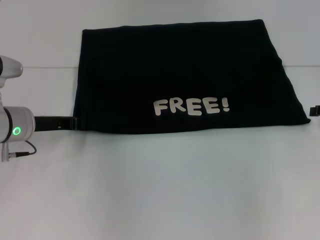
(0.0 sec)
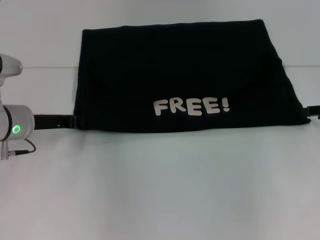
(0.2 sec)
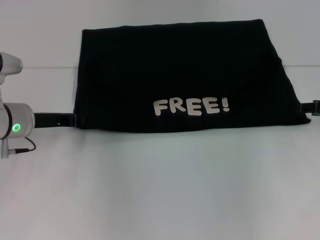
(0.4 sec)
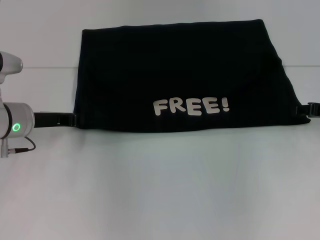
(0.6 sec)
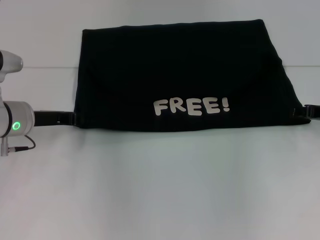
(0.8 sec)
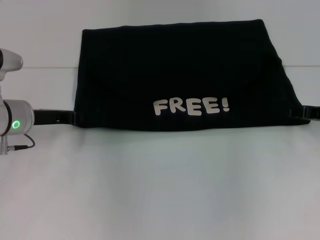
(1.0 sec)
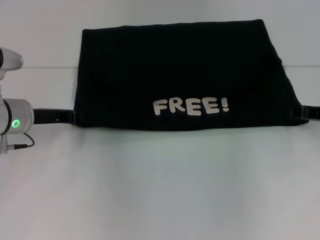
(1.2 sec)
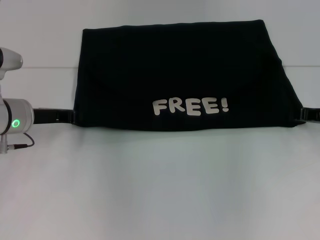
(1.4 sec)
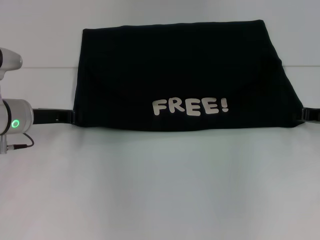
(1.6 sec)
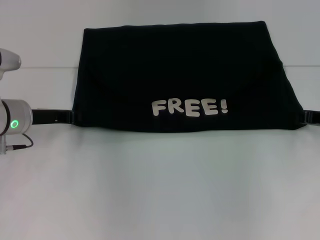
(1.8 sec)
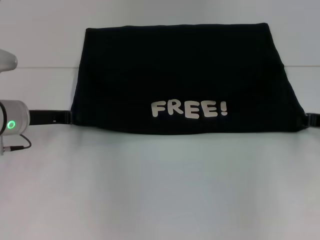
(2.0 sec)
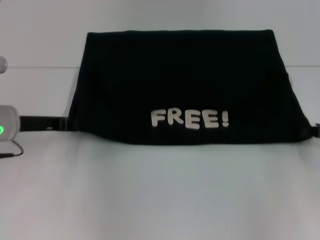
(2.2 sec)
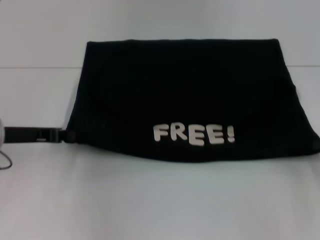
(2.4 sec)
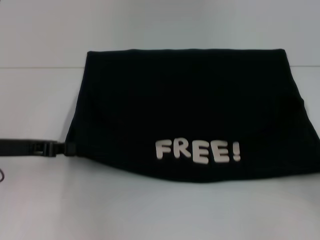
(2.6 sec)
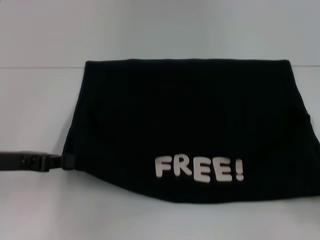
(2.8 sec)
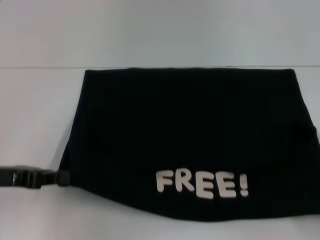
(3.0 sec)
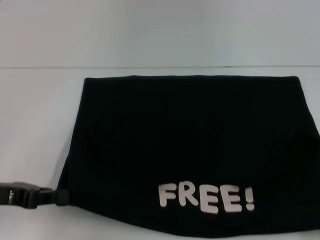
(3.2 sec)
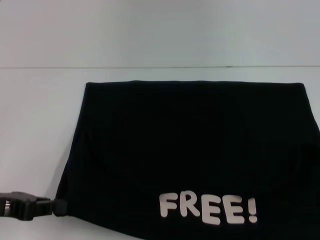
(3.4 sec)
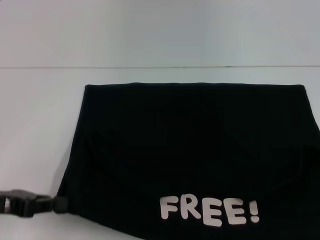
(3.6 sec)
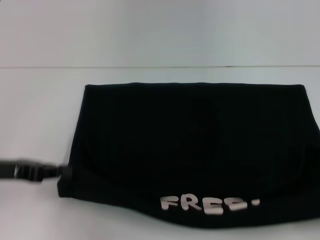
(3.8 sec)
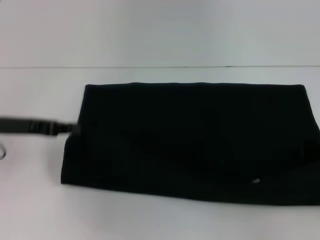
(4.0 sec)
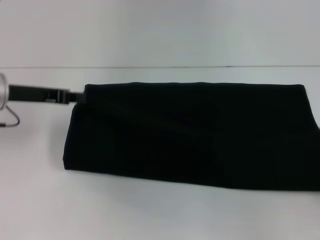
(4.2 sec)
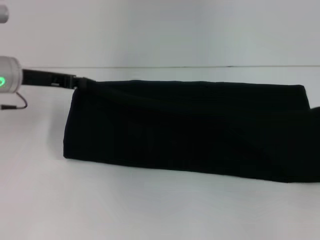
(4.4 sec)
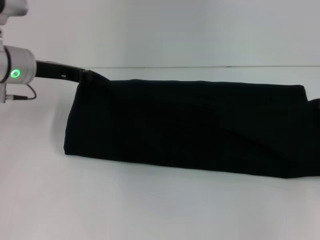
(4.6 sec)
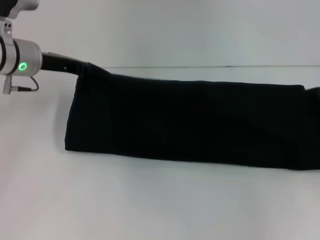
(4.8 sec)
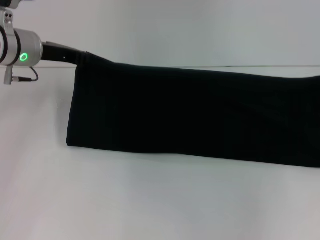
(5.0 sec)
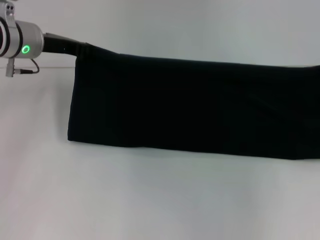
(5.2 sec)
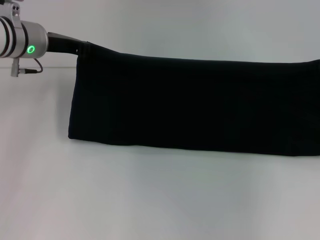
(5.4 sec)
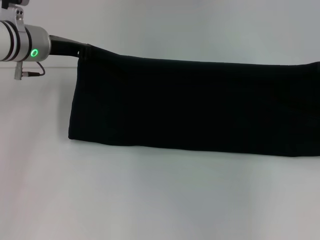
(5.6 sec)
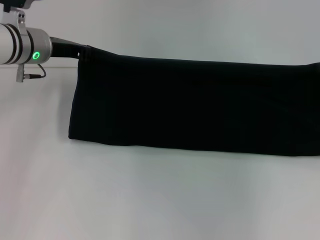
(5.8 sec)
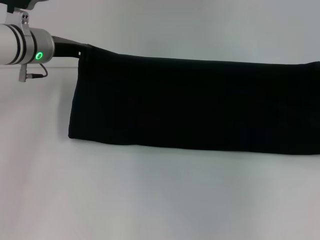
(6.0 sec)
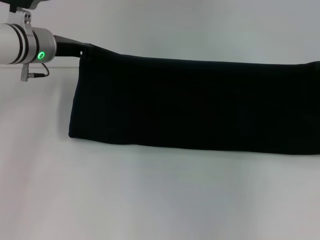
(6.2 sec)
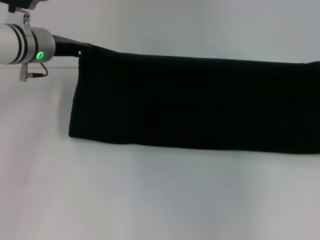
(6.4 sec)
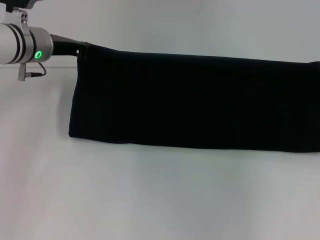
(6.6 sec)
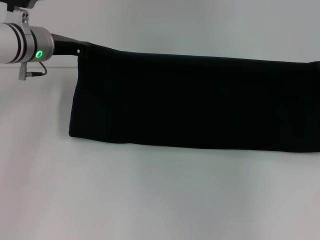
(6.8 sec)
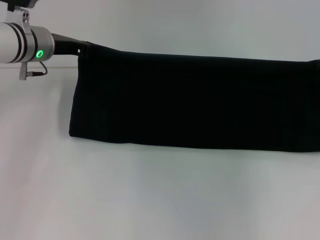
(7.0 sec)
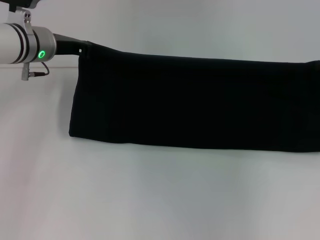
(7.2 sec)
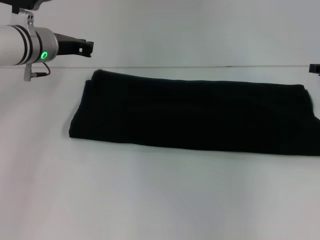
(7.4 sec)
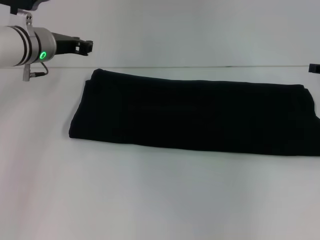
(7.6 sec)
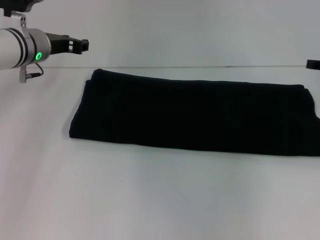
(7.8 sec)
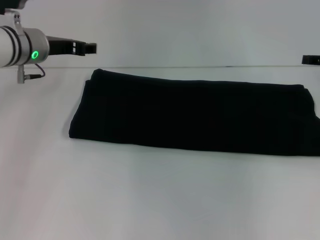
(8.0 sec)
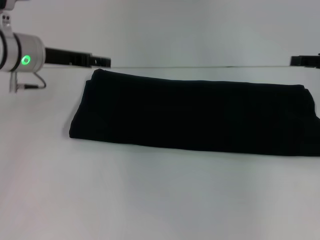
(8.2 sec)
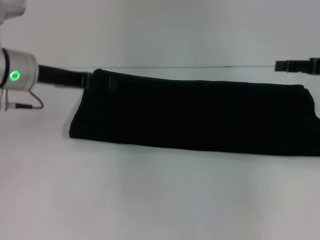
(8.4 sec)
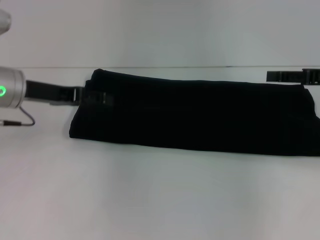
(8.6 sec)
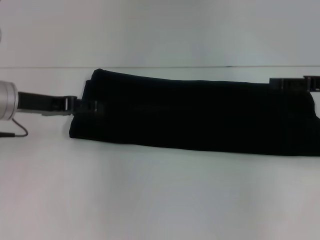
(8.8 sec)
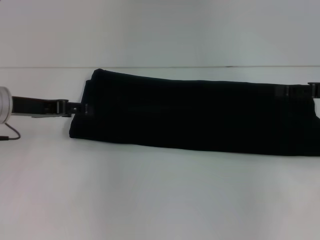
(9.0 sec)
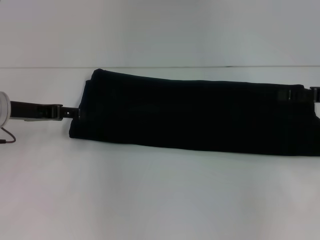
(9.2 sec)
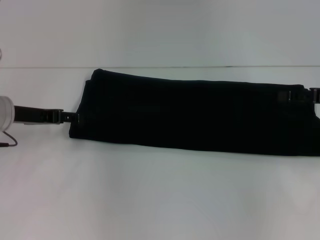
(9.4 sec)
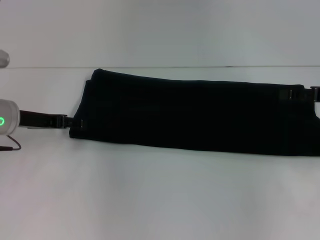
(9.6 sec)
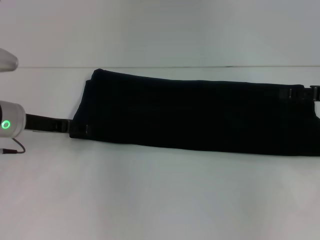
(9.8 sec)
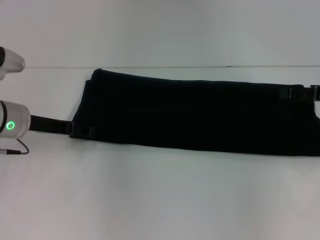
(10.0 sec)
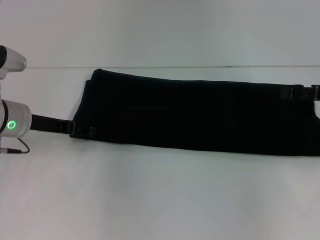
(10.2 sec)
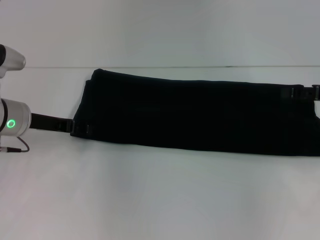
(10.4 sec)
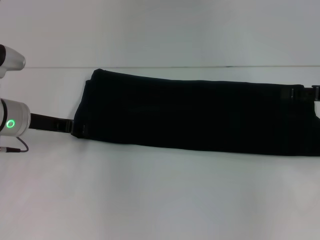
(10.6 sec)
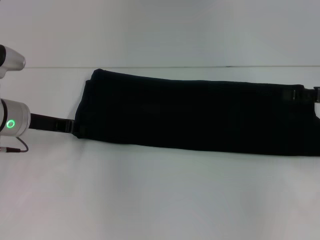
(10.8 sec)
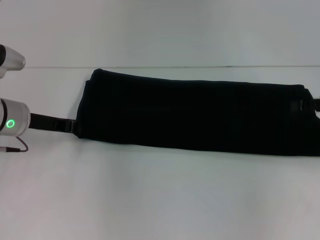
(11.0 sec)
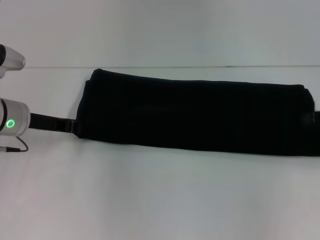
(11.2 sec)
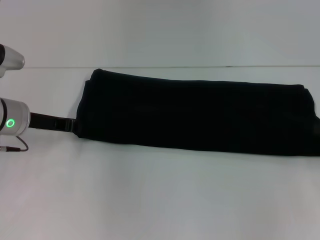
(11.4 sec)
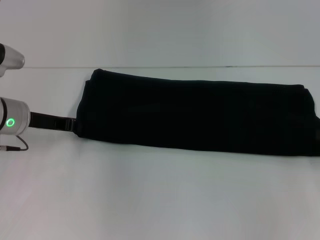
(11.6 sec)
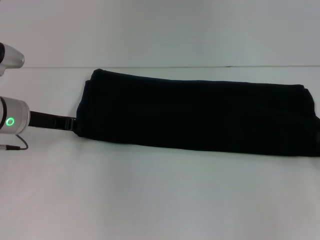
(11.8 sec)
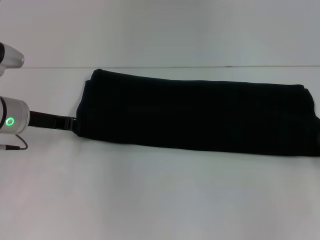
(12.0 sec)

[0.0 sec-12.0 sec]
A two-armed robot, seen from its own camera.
Step, 0.0 sec to 3.4 sec: Pull the clothes with your left hand.
Step, 0.0 sec to 3.4 sec: Pull the clothes with your right hand.
Step, 3.6 sec to 7.4 sec: Fold the clothes with your right hand.
0.0 sec to 1.6 sec: The right gripper shifts by some 5 cm, and closes up.
1.6 sec to 3.0 sec: The left gripper goes about 10 cm backward and to the left. The right gripper travels backward and to the right by about 20 cm.
3.0 sec to 4.4 sec: Both grippers move forward, approximately 15 cm.
4.4 sec to 6.0 sec: The left gripper moves forward, approximately 5 cm. The right gripper travels forward by some 10 cm.
6.0 sec to 7.6 sec: There are only small adjustments of the grippers.
7.6 sec to 9.0 sec: The right gripper opens, while the left gripper heads backward and to the left, covering approximately 10 cm, and opens up.
9.0 sec to 10.4 sec: The grippers make only small movements.
10.4 sec to 12.0 sec: The left gripper closes.

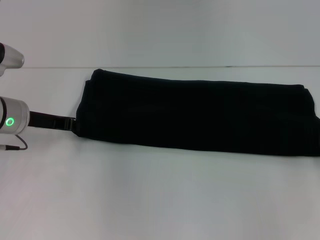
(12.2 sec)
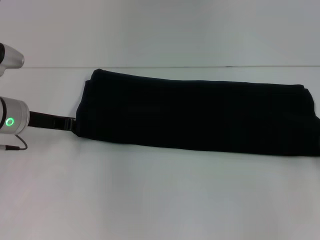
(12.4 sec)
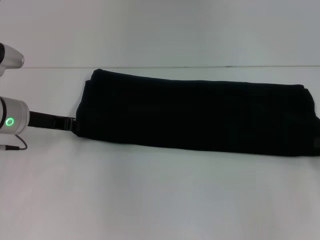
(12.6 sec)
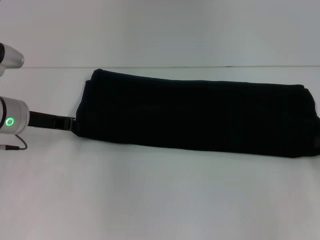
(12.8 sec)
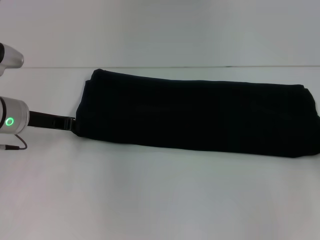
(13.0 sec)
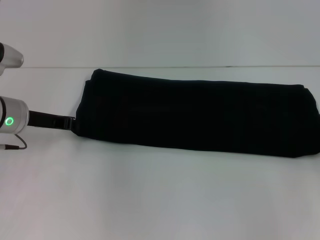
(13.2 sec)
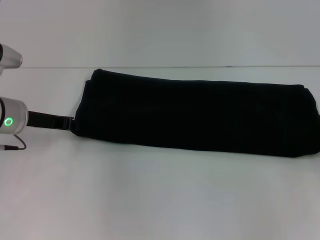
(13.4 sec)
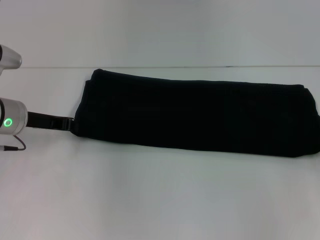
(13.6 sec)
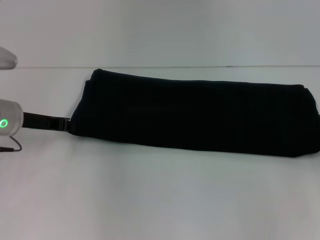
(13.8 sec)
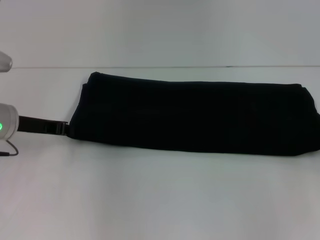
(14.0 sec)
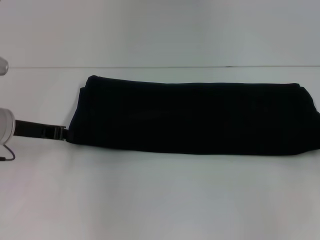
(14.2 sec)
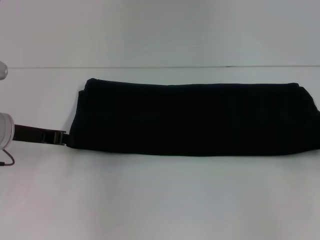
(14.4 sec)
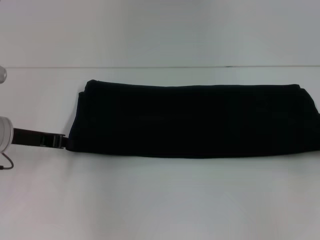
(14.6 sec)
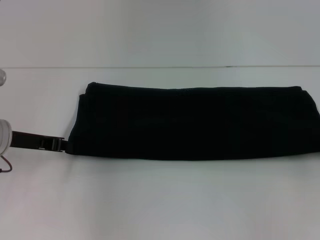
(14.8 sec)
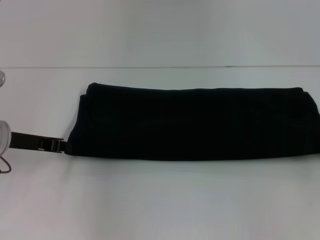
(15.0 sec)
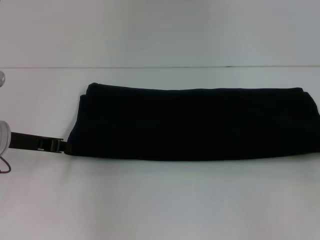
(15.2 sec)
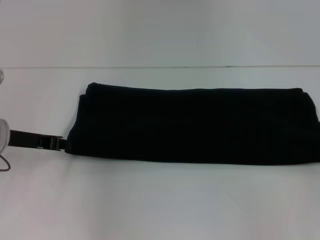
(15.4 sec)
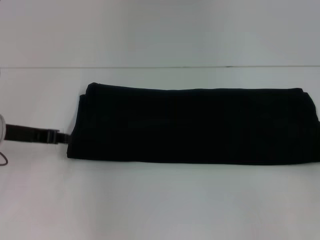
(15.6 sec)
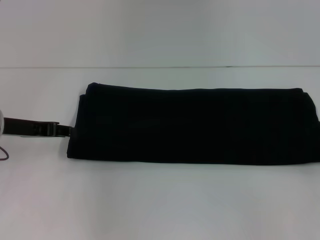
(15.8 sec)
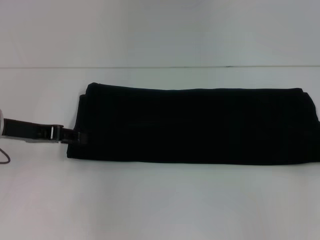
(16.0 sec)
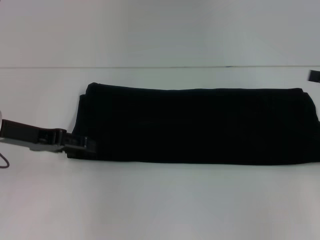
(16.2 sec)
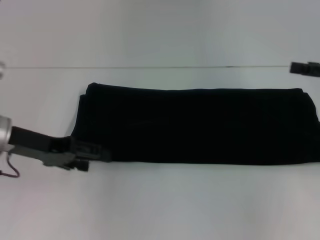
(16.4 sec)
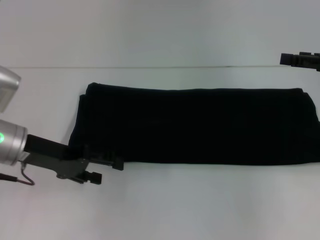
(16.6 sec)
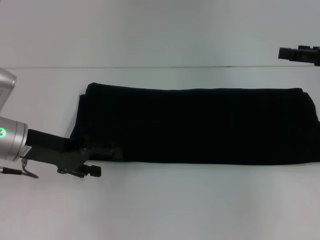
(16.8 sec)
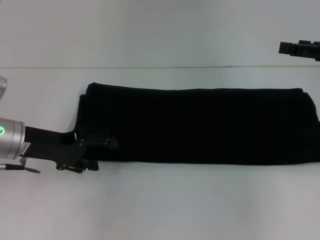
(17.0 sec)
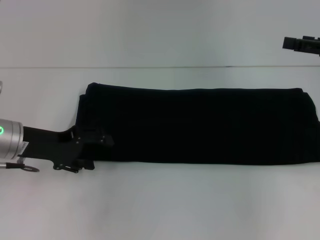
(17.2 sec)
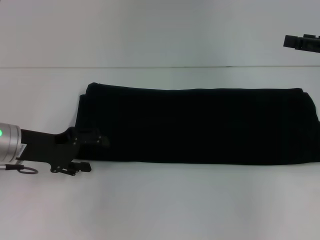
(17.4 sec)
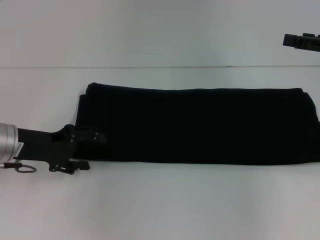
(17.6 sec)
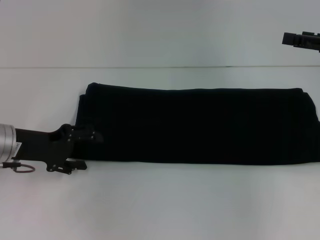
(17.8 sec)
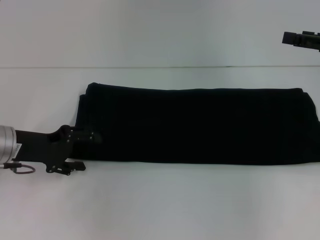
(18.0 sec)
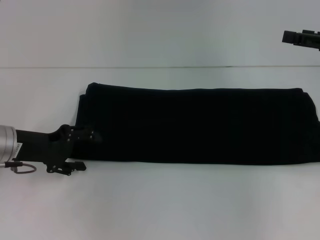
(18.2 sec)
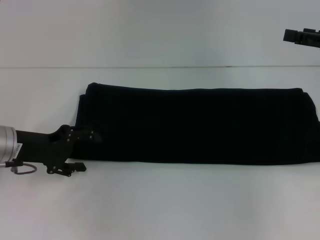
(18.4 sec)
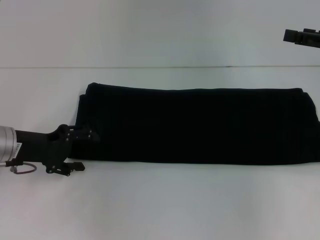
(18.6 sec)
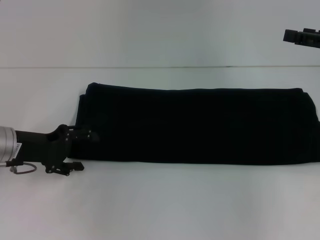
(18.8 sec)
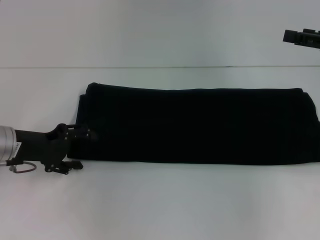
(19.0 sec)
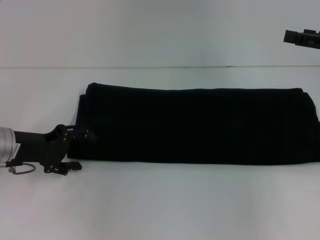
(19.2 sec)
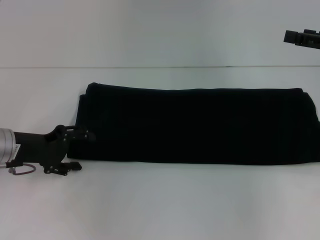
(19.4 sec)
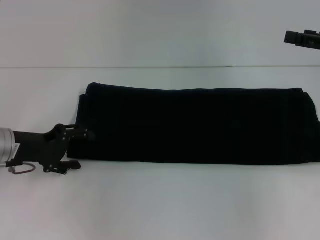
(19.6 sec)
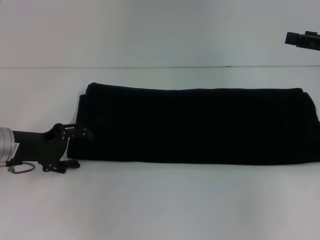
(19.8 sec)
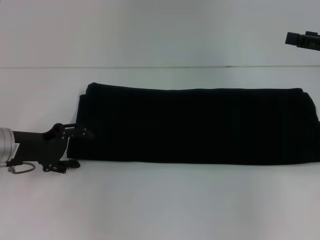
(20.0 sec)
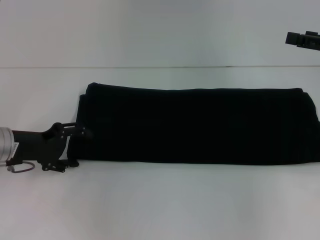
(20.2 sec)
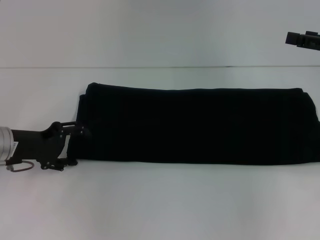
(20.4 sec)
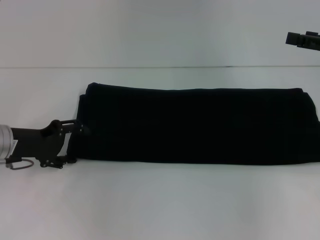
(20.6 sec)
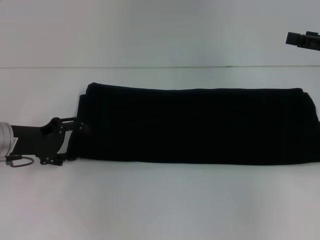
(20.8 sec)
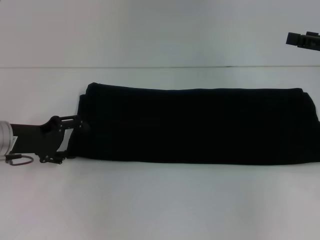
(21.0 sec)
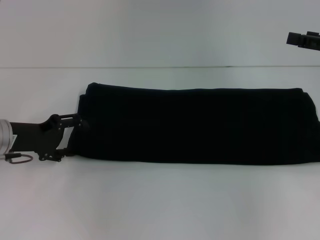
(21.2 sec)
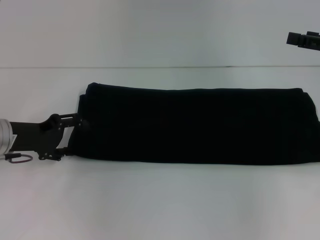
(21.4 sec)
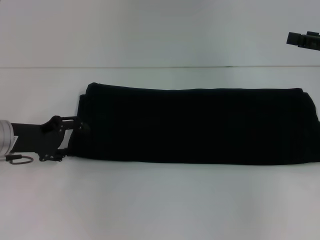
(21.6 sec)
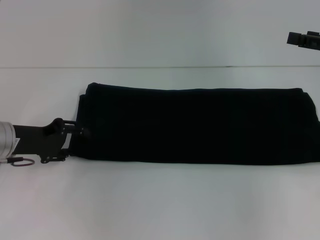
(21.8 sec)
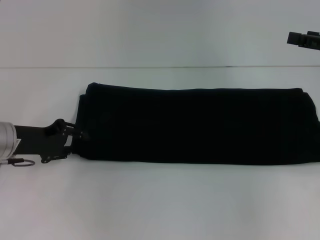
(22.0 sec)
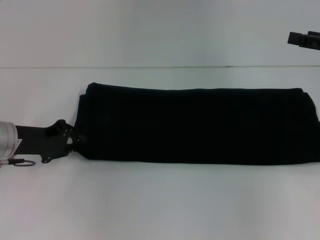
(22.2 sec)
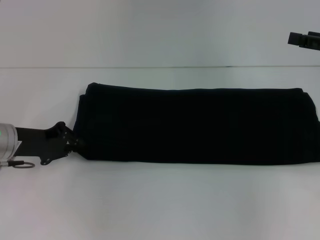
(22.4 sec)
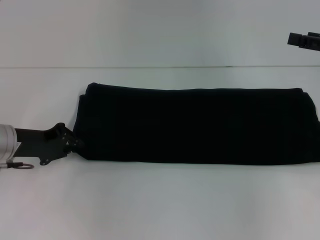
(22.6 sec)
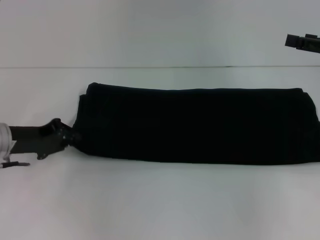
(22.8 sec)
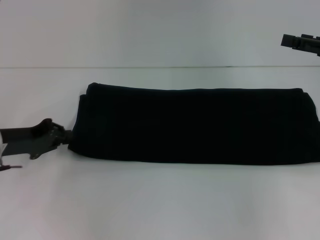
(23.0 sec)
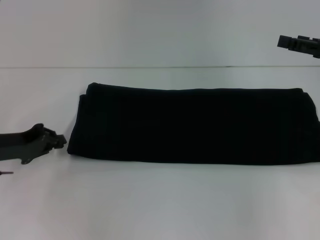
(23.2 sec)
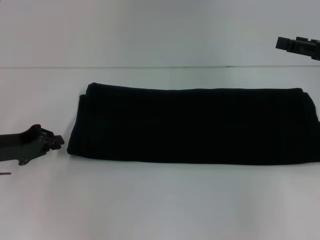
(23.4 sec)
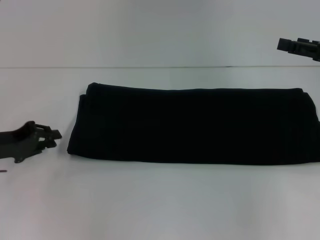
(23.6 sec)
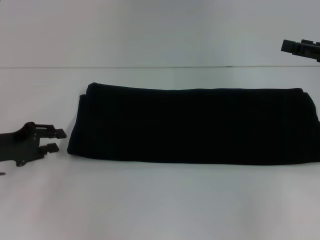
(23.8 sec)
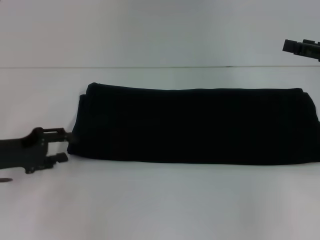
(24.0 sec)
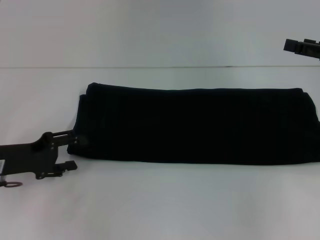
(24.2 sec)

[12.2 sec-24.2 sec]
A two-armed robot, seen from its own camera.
13.8 sec to 15.2 sec: The grippers move only a little.
15.2 sec to 16.6 sec: The right gripper goes approximately 10 cm to the left, upward and forward, and opens its fingers. Meanwhile the left gripper opens its fingers.
18.2 sec to 21.2 sec: There are only small adjustments of the grippers.
21.2 sec to 22.6 sec: The left gripper closes.
22.6 sec to 24.2 sec: The left gripper opens its fingers.
